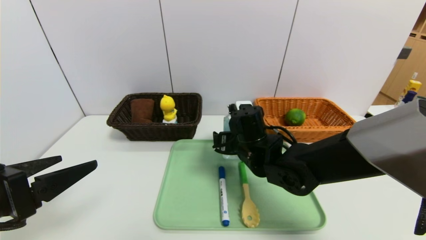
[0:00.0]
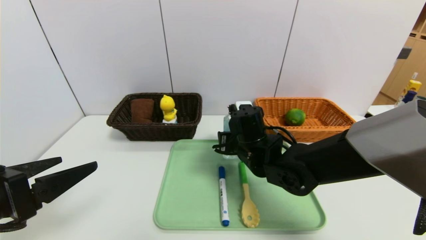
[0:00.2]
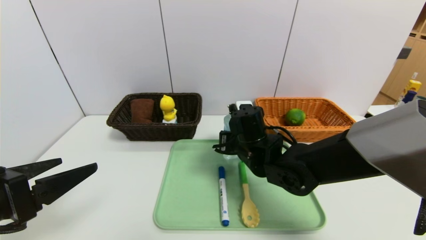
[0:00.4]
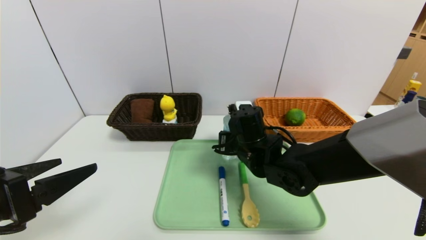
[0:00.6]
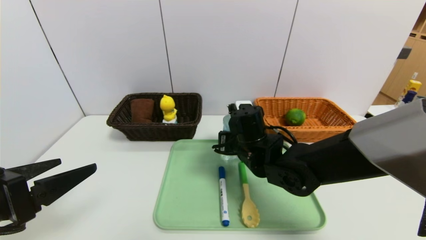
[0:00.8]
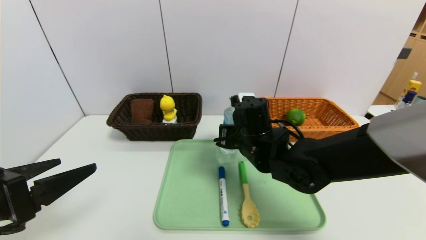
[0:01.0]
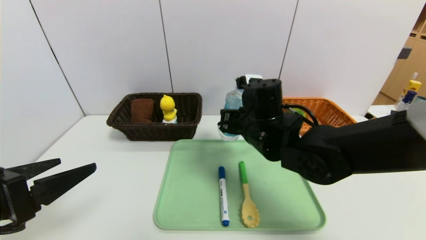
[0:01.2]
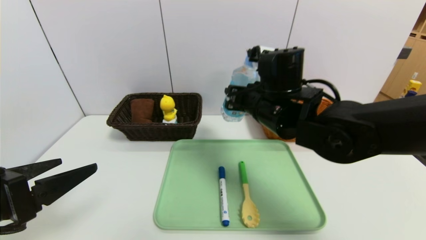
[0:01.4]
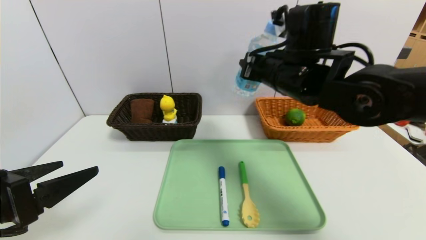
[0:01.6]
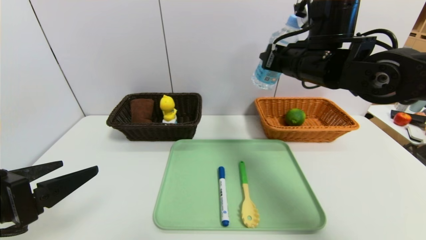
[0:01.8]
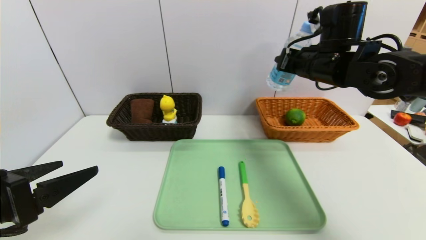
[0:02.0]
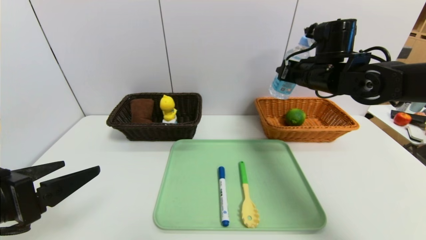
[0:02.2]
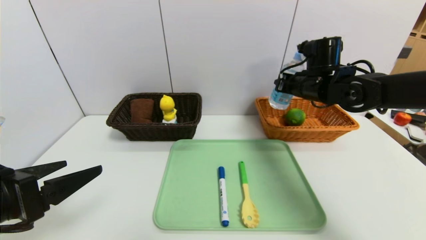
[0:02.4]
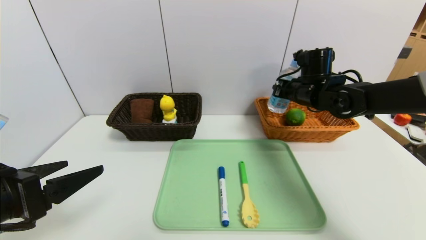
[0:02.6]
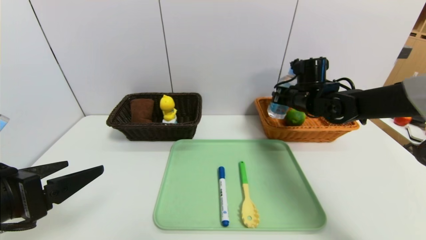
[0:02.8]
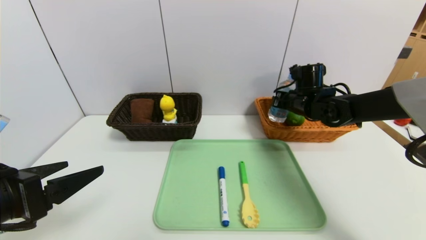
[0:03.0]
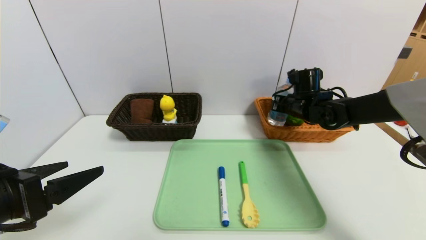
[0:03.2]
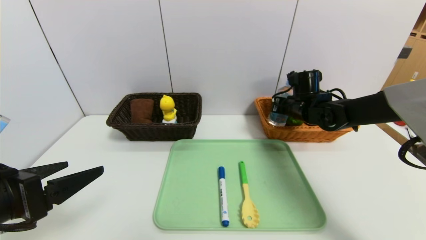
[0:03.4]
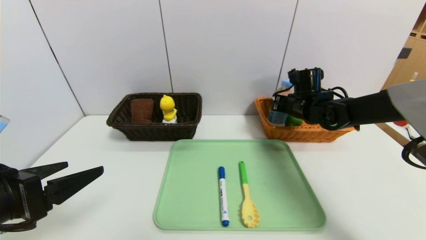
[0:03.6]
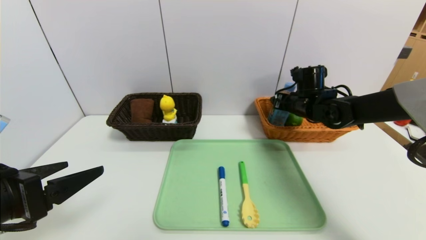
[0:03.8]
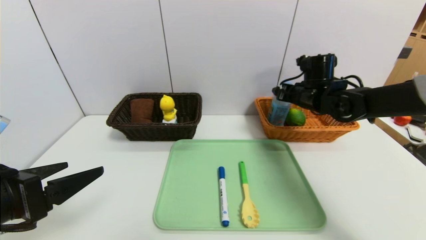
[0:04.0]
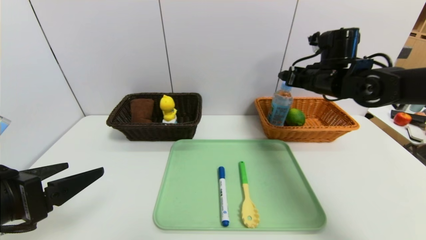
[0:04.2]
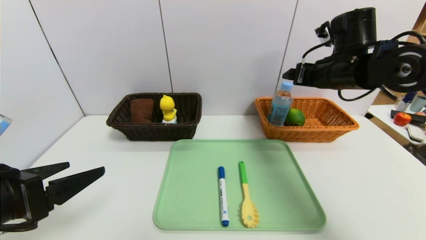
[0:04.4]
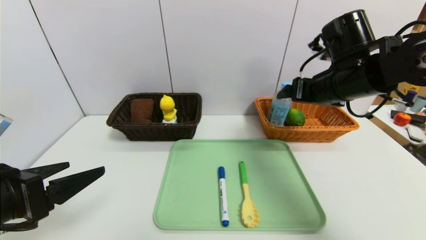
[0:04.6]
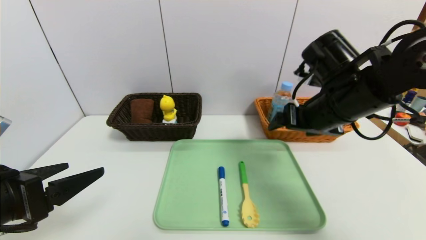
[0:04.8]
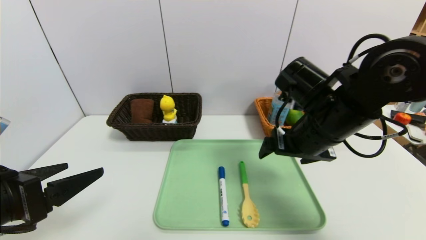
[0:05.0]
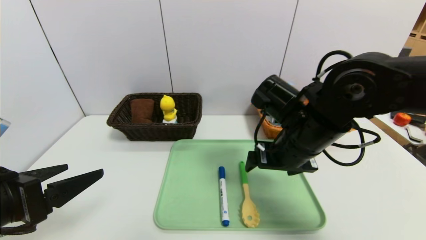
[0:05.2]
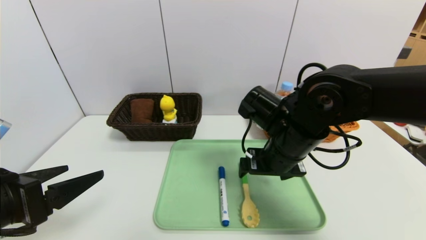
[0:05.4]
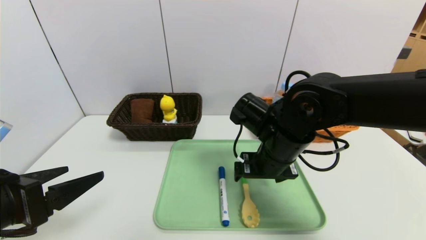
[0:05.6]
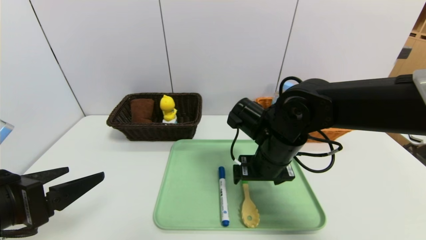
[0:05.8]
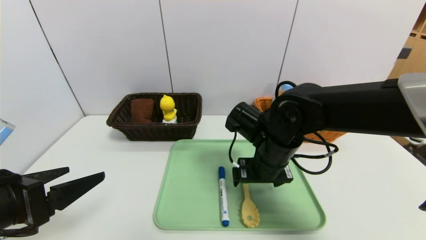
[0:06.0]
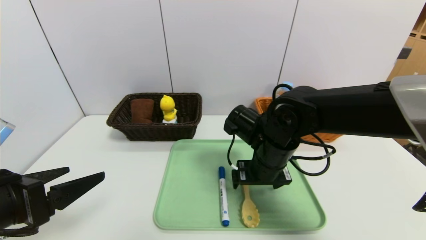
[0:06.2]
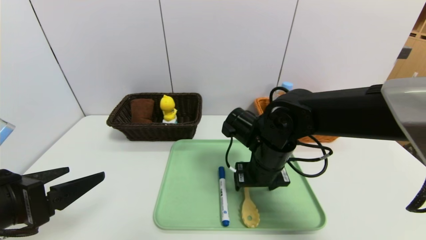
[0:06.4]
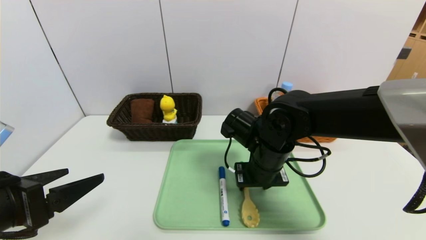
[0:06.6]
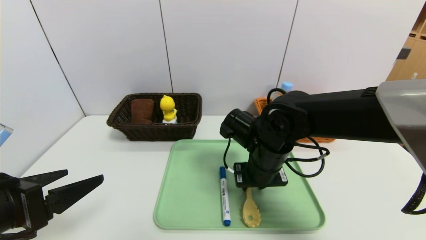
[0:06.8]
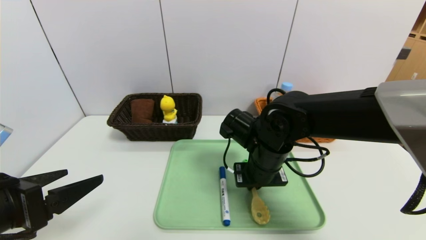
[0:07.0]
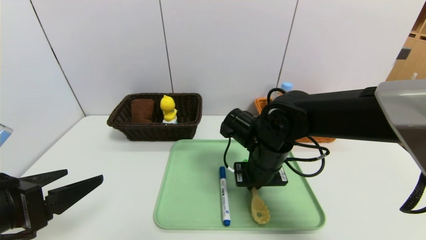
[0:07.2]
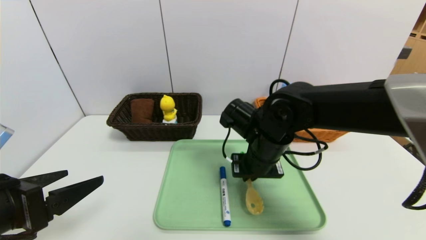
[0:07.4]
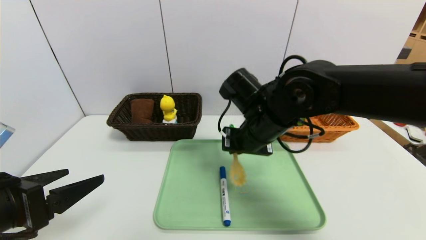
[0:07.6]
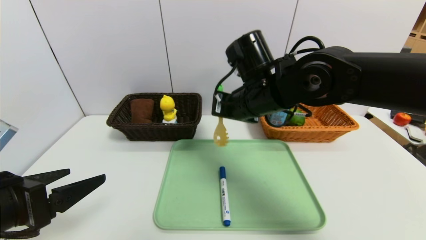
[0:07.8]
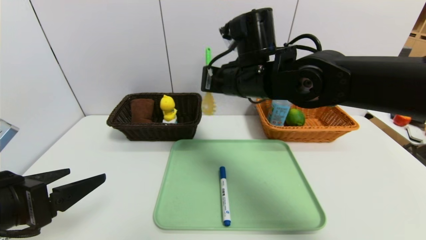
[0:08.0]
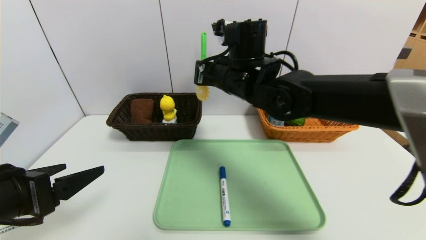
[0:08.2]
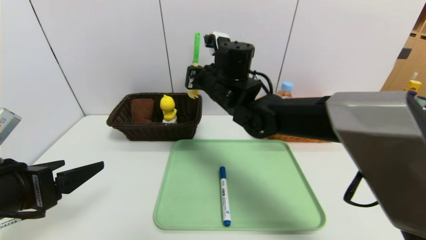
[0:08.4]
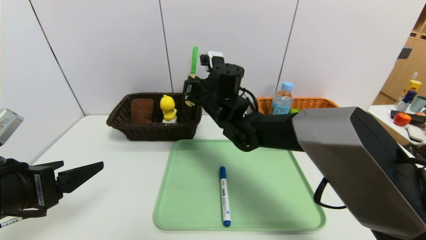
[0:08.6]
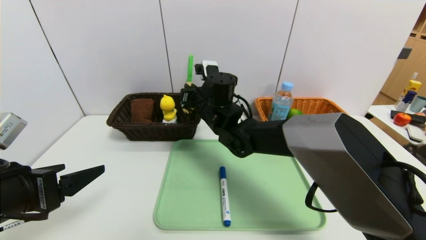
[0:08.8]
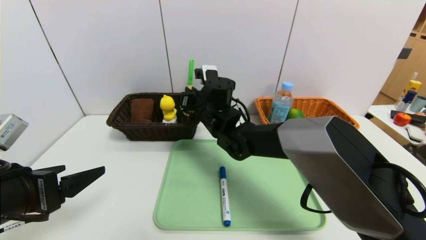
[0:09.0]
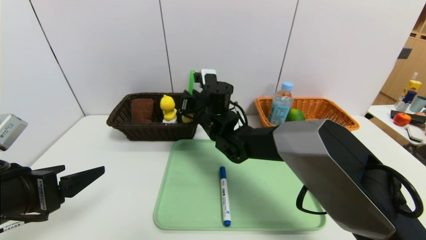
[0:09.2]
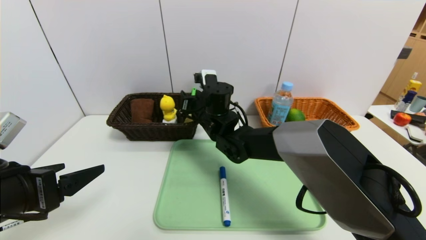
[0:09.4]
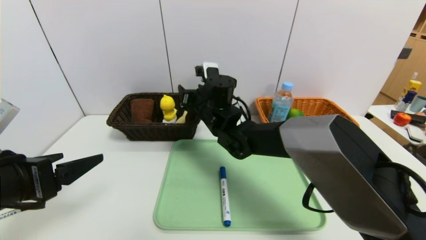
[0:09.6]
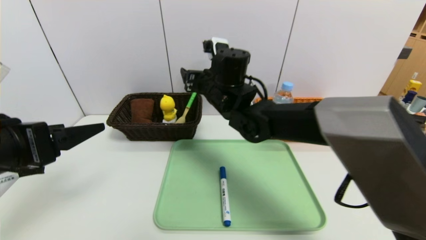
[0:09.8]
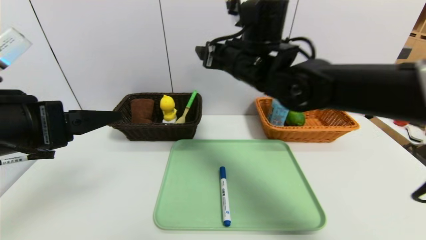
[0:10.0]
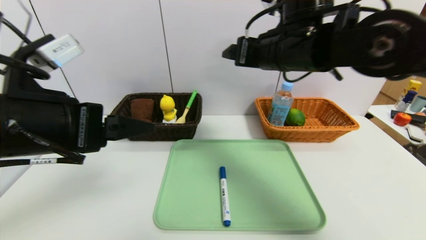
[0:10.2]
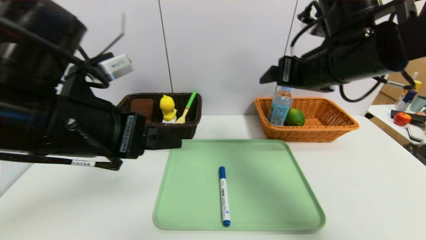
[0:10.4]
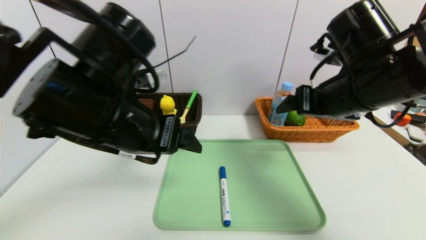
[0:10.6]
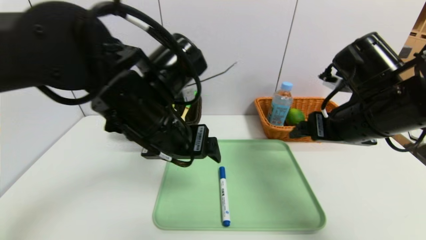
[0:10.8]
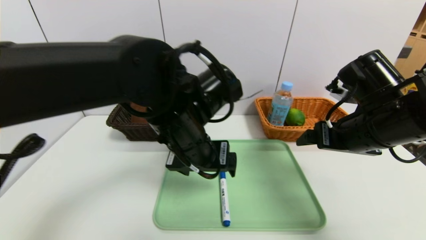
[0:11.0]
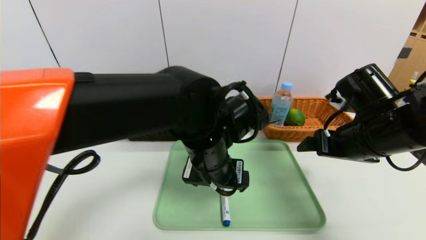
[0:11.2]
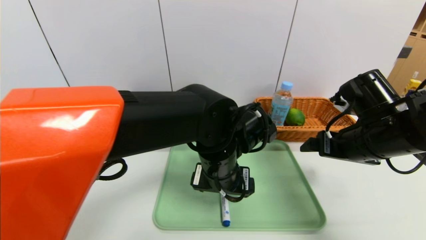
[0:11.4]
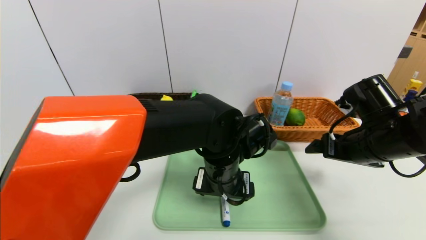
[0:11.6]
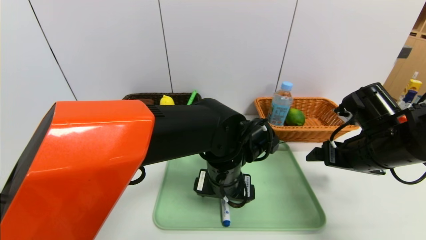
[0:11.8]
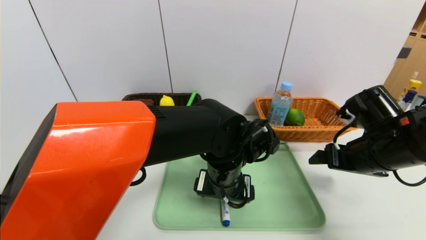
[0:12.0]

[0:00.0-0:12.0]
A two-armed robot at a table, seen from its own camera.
Task of the whole recording: place the food in the right basket with the right gripper, and place the non food items in the left basket with the left gripper.
Step, 0:00.0 to 0:04.4: Grasp the soda water and put it in the right basket.
Step, 0:04.6 to 0:10.0: Grasp the spoon and put it in the left basket.
0:00.0 to 0:01.6: The right gripper is displaced upward by some 15 cm, and closes up.
0:01.6 to 0:03.0: The right gripper heads forward, downward and to the right, covering approximately 20 cm.
0:03.0 to 0:04.4: The right gripper moves upward and backward, approximately 15 cm, and opens.
0:04.4 to 0:06.0: The right gripper shifts some 20 cm to the left, downward and backward.
0:06.0 to 0:07.6: The right gripper moves about 5 cm, and closes.
0:07.6 to 0:09.0: The right gripper goes about 15 cm forward and to the left, and goes upward and returns, approximately 5 cm each way.
0:09.0 to 0:10.4: The right gripper travels to the right, upward and backward by some 25 cm, and opens up. The left gripper goes some 15 cm to the right, upward and forward.
0:10.4 to 0:12.0: The right gripper is displaced downward and to the right by approximately 15 cm. The left gripper heads to the right, downward and forward, covering some 25 cm.

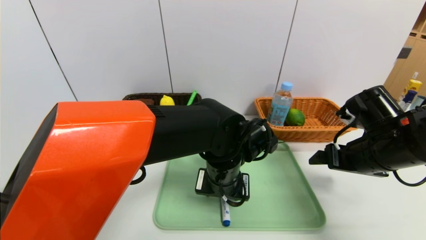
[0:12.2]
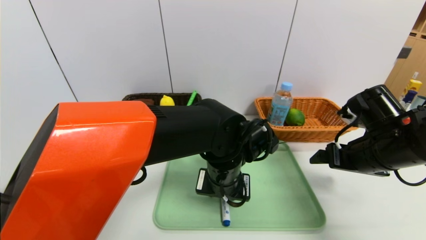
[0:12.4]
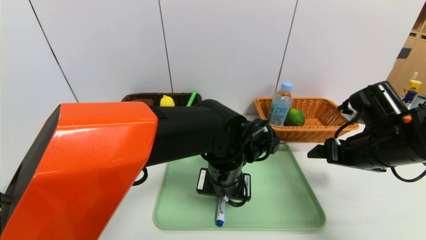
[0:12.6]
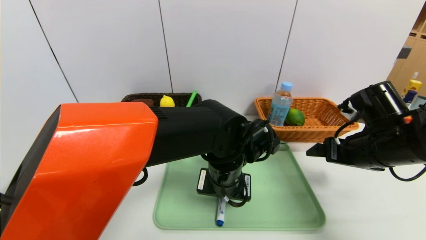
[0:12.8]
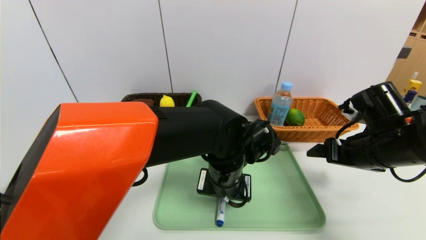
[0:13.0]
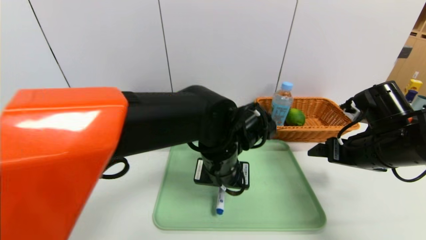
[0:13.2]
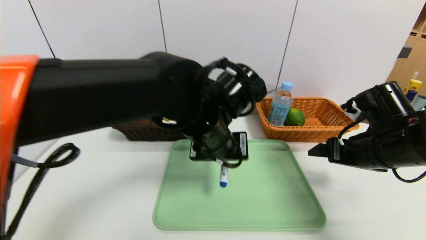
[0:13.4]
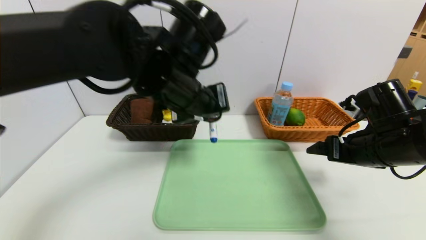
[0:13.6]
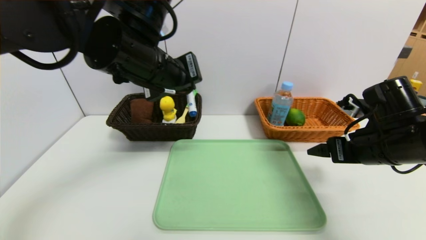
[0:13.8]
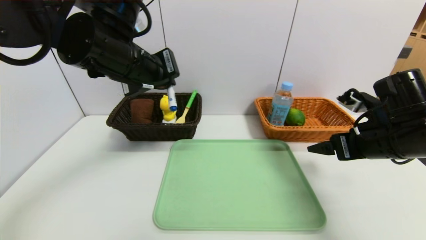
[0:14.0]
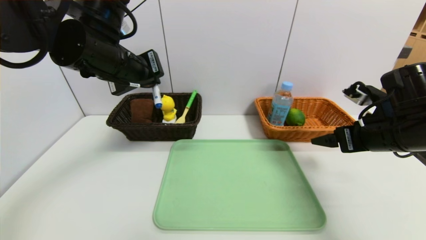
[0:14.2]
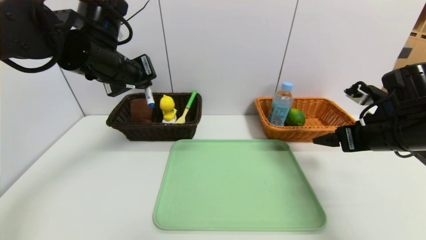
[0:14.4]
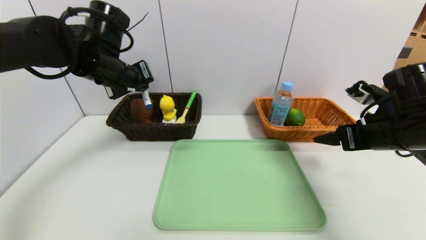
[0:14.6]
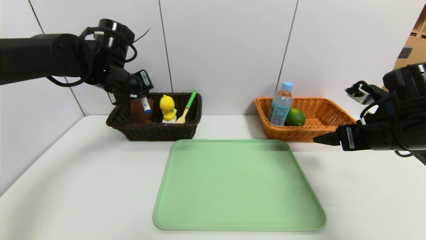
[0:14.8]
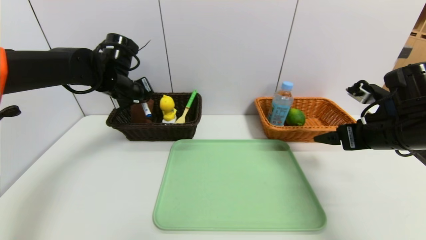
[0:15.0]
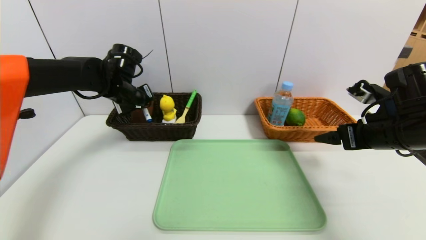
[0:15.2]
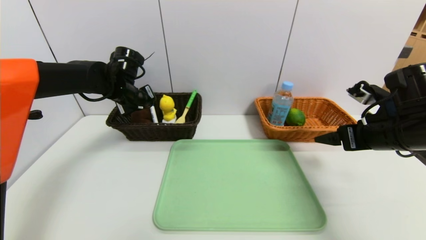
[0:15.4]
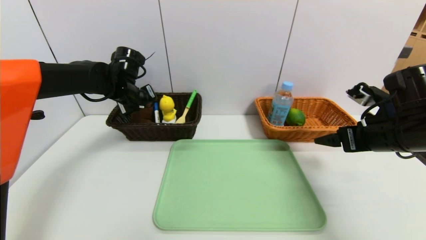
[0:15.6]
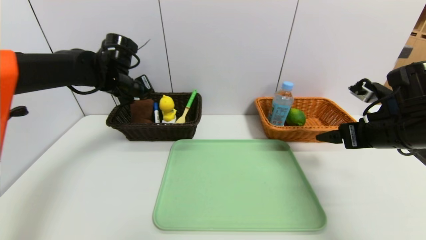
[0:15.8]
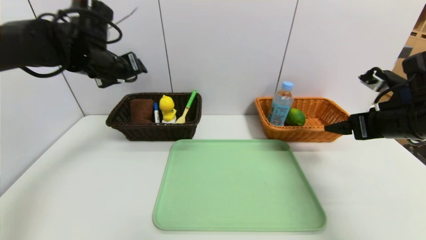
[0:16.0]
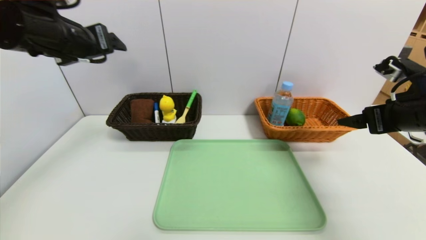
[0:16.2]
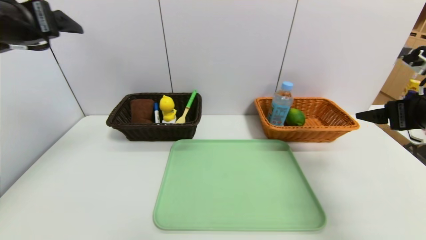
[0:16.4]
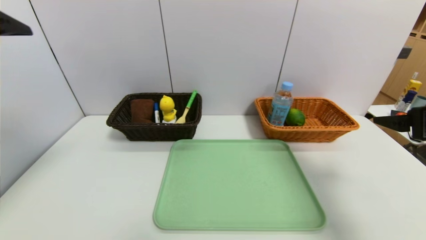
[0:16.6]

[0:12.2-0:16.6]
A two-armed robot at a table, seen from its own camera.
Task of the whole recording: place the food in the right basket with the right gripper, and place the non food items in the left basket with the left gripper.
Step, 0:12.2 to 0:16.2: Grasp the blue marker and put it in the left basket.
0:12.2 to 0:13.6: The left gripper travels upward and to the left by approximately 15 cm, and closes.
0:13.6 to 0:15.2: The left gripper shifts roughly 25 cm to the left, forward and downward.
0:15.2 to 0:16.6: The right gripper goes about 10 cm backward and upward. The left gripper is displaced backward and upward by roughly 30 cm, and opens its fingers.
